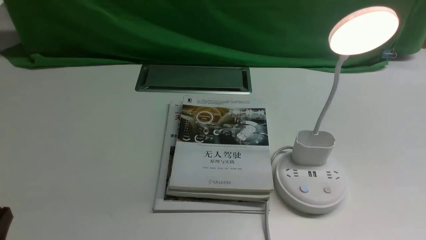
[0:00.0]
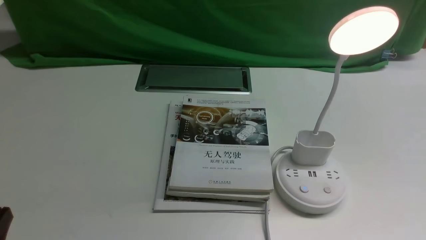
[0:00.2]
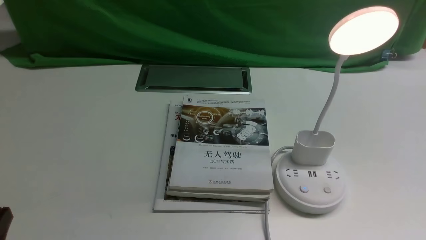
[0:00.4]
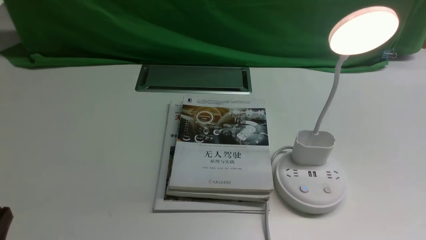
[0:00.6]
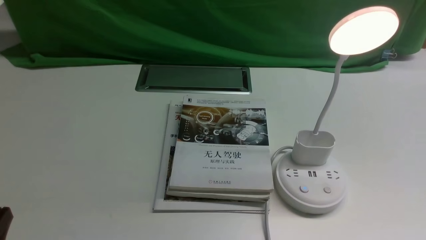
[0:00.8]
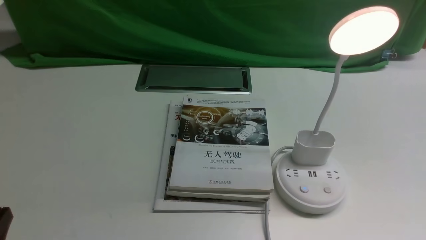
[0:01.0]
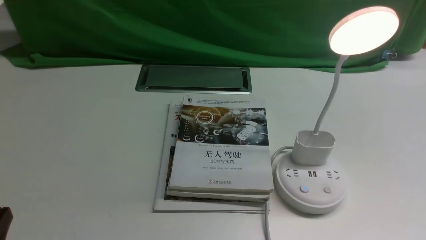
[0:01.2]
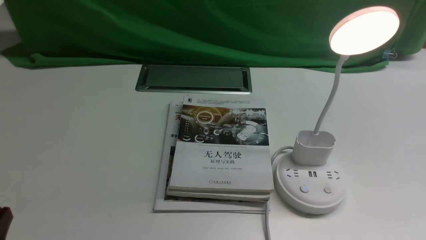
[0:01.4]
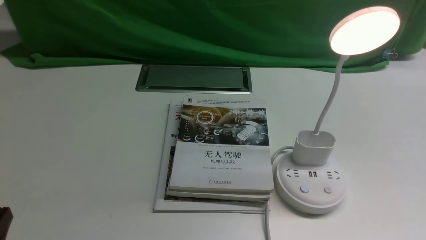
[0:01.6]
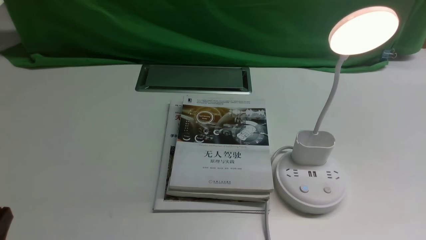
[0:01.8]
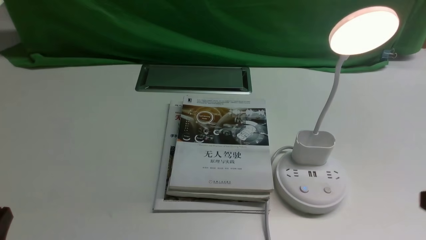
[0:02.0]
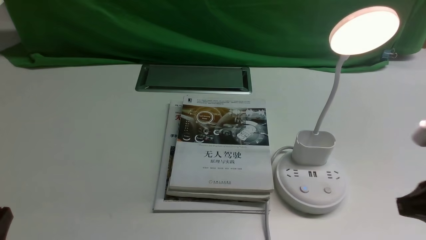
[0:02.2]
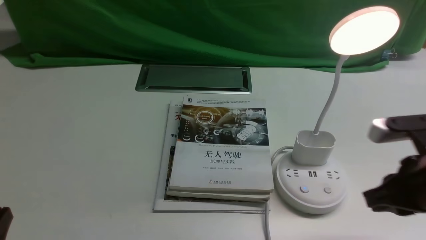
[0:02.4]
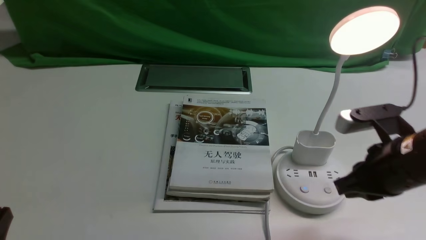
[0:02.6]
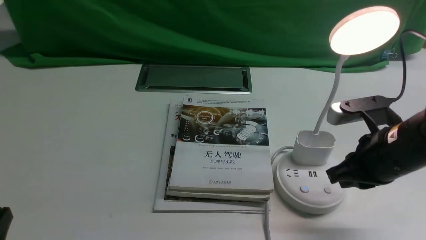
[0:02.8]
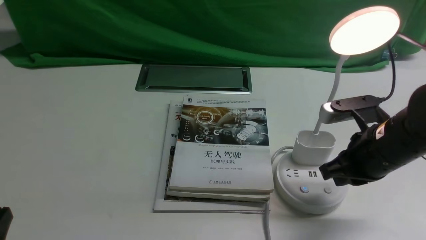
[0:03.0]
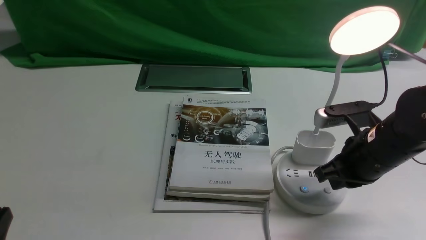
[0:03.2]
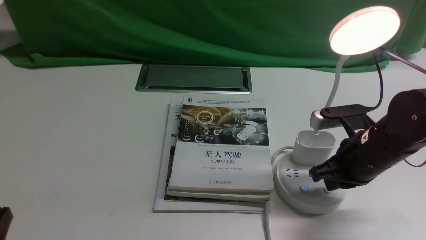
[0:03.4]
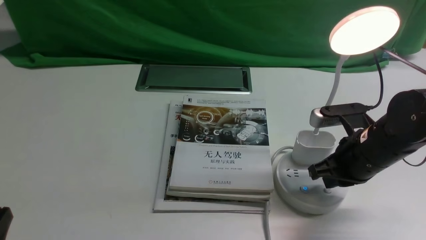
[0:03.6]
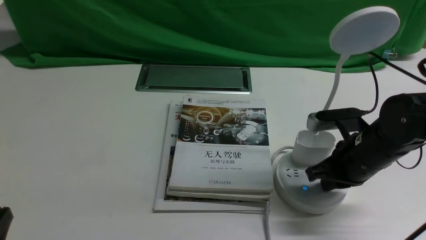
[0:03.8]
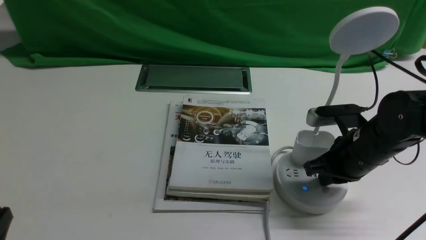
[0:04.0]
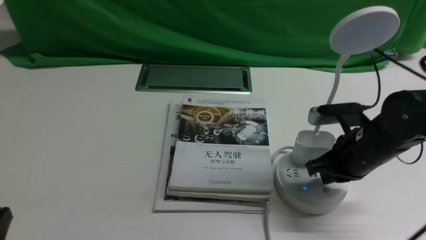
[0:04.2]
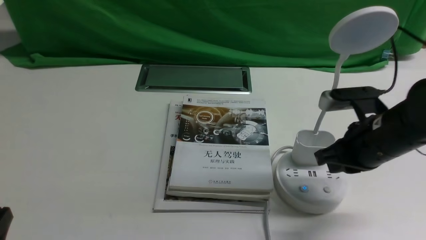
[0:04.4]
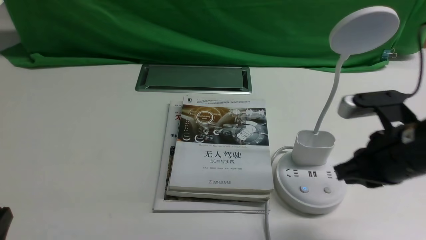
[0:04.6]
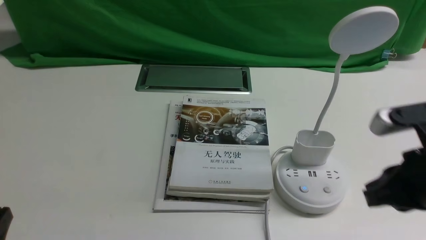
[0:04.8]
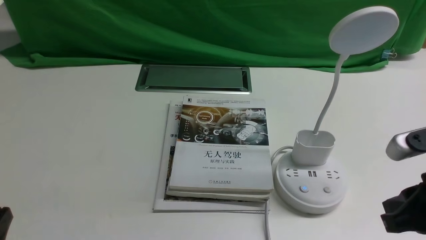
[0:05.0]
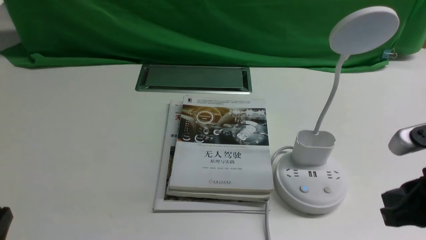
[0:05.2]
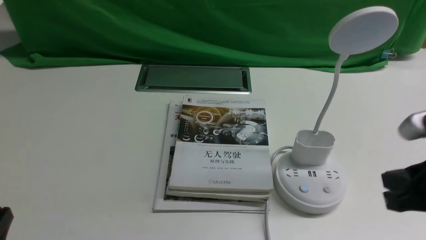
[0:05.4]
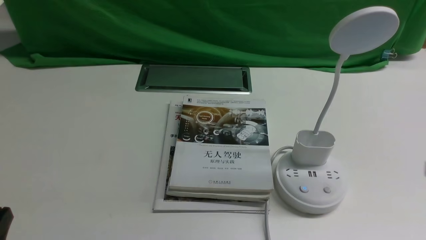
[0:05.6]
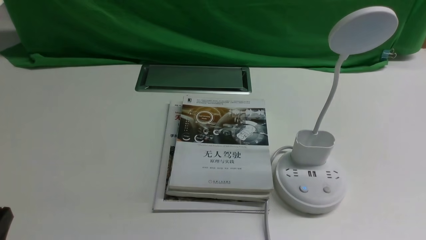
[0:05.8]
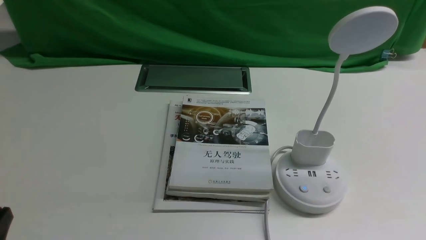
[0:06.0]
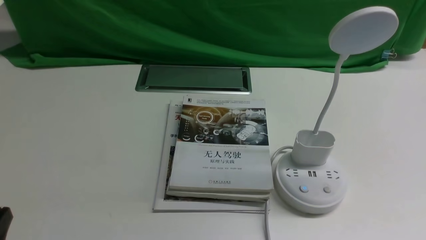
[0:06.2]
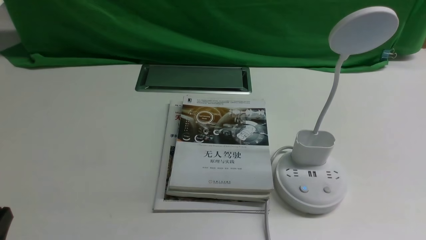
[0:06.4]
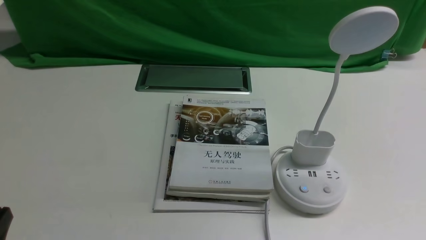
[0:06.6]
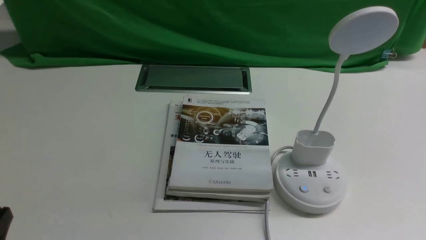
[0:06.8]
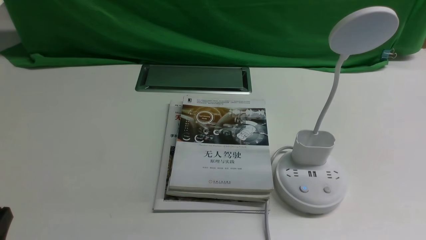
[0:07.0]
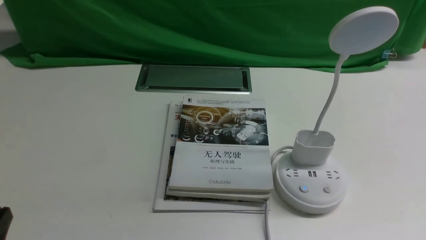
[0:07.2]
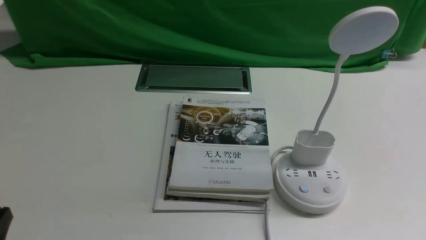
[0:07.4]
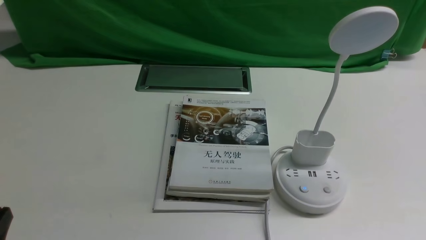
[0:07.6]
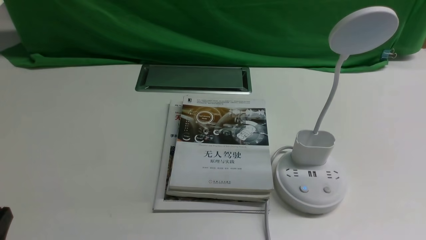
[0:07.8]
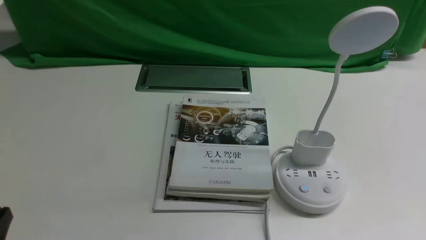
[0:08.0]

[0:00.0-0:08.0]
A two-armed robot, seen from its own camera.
Task of the whole recording: turn off the desk lamp on the white desktop by hand.
Step, 0:00.0 to 0:04.2: use the right arm to press the button switch on the lamp holder.
0:01.6 to 0:03.2: The right gripper heads forward and to the left, covering roughly 25 cm, and closes its fingers.
0:03.2 to 0:04.8: The right gripper heads backward and upward, covering roughly 10 cm.
0:04.8 to 0:06.4: The right gripper is displaced backward, downward and to the right by about 15 cm.
0:06.4 to 0:08.0: Neither gripper changes place.

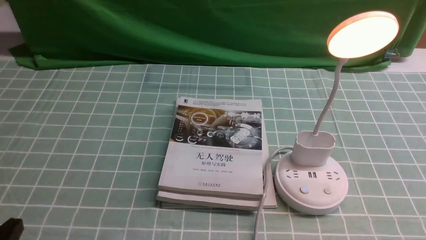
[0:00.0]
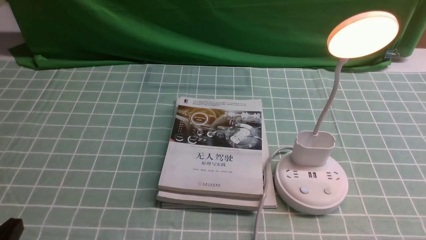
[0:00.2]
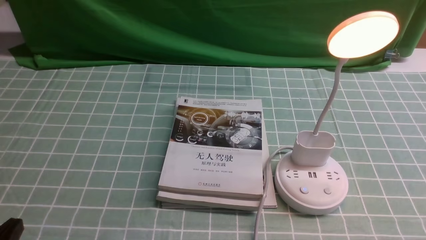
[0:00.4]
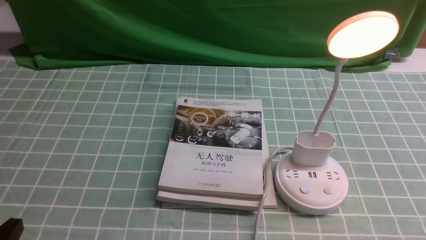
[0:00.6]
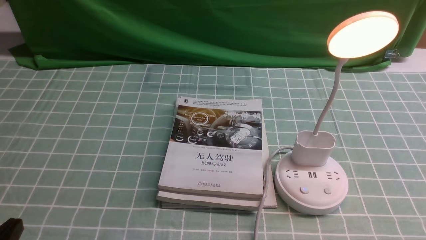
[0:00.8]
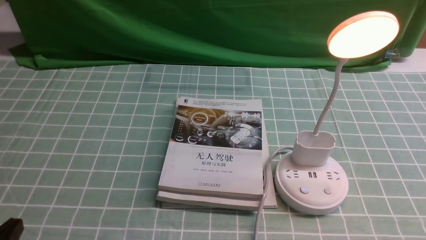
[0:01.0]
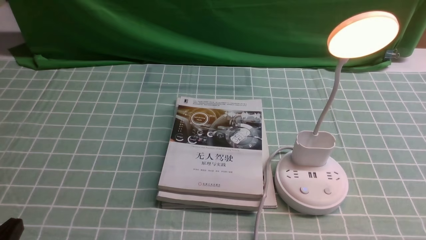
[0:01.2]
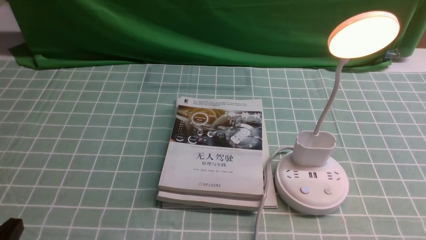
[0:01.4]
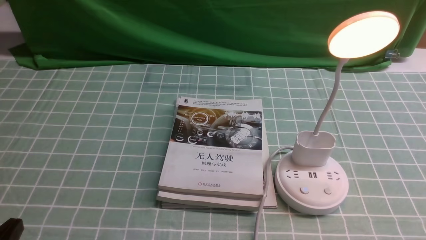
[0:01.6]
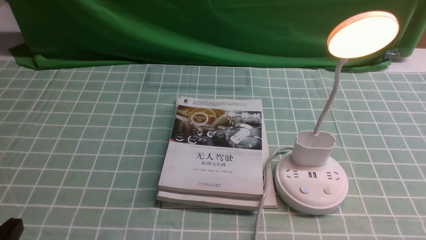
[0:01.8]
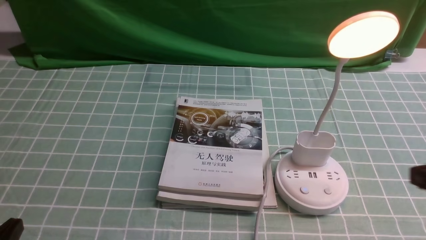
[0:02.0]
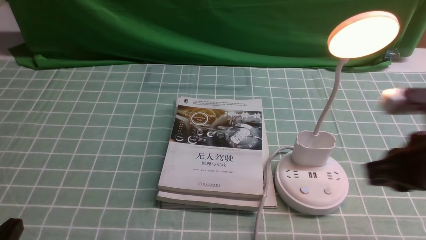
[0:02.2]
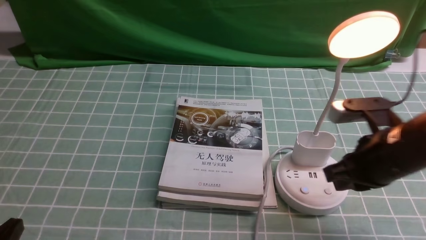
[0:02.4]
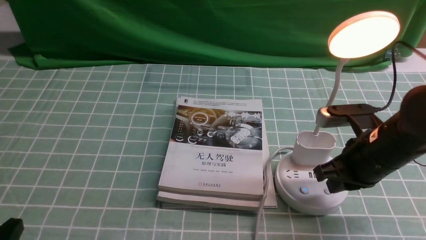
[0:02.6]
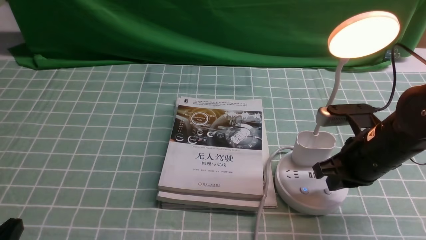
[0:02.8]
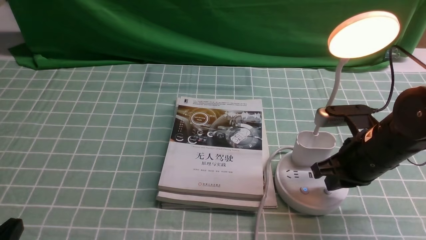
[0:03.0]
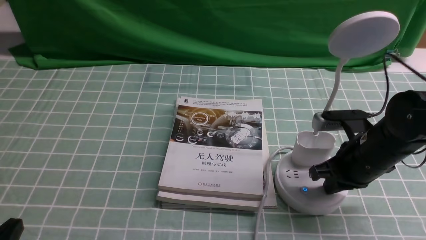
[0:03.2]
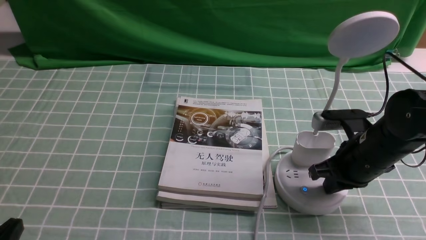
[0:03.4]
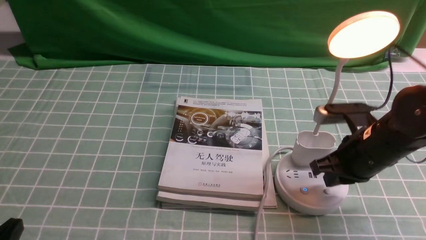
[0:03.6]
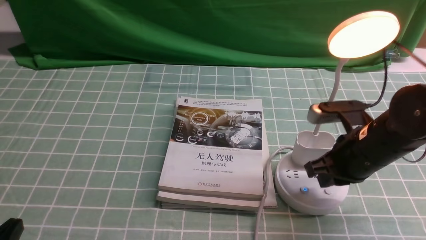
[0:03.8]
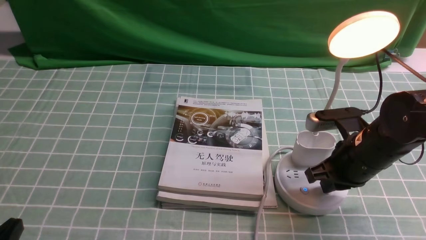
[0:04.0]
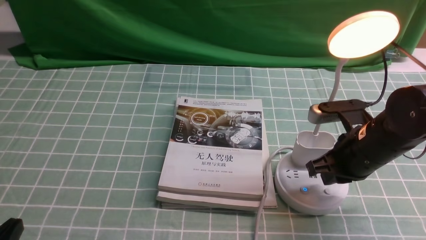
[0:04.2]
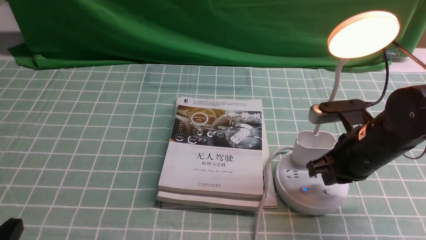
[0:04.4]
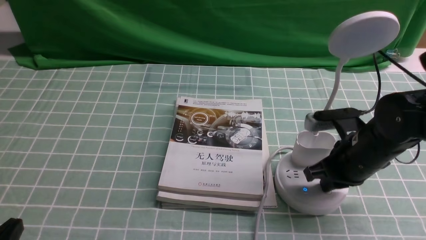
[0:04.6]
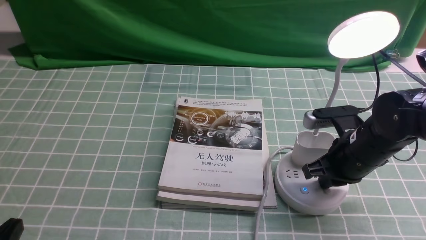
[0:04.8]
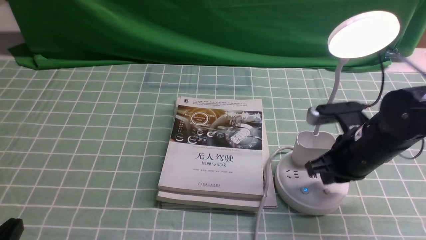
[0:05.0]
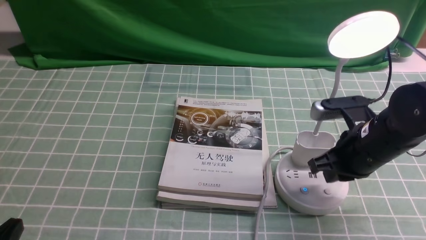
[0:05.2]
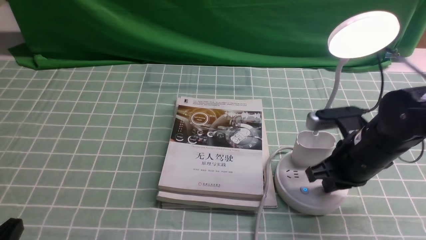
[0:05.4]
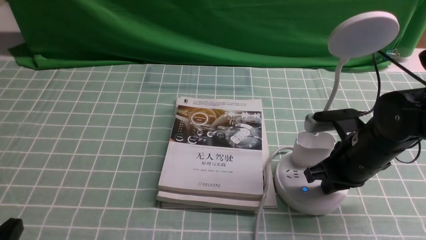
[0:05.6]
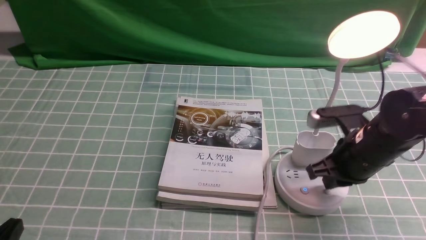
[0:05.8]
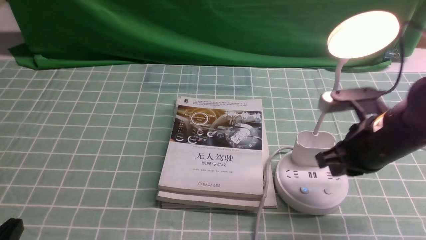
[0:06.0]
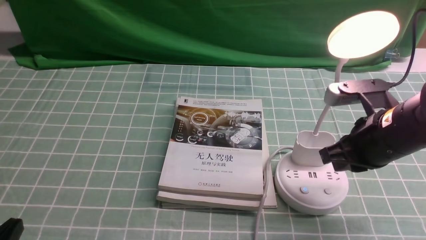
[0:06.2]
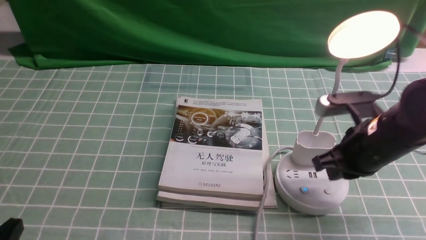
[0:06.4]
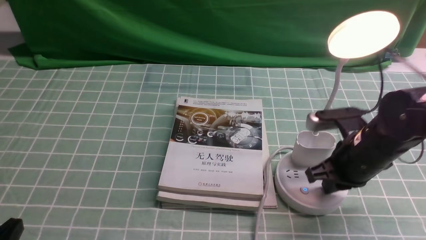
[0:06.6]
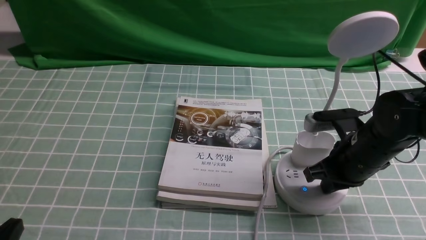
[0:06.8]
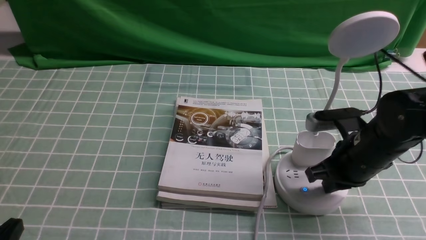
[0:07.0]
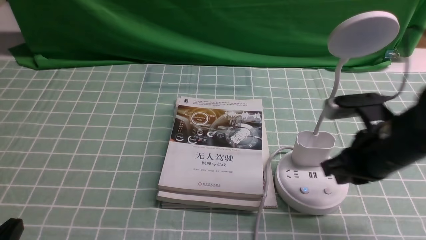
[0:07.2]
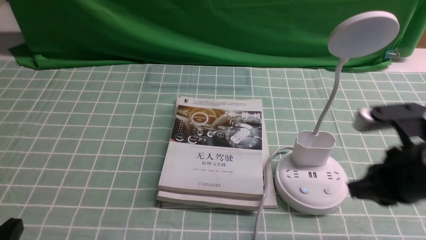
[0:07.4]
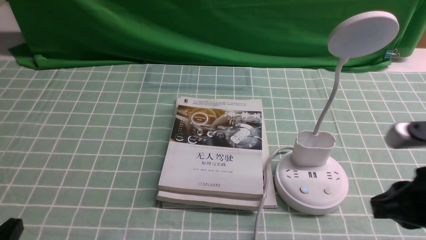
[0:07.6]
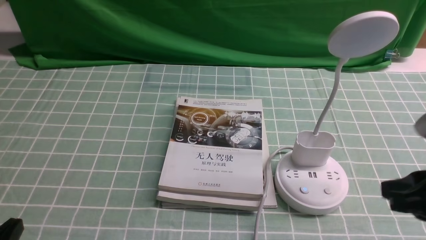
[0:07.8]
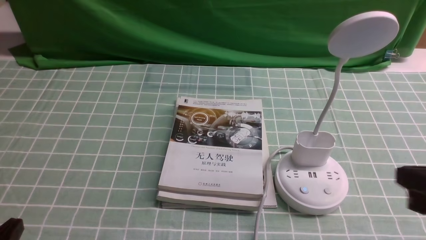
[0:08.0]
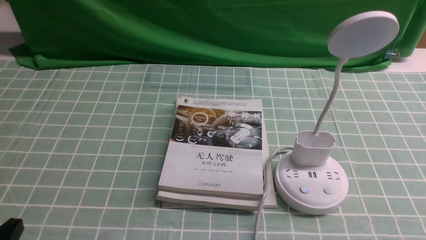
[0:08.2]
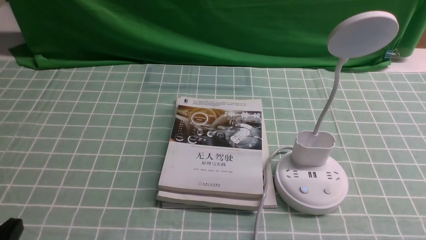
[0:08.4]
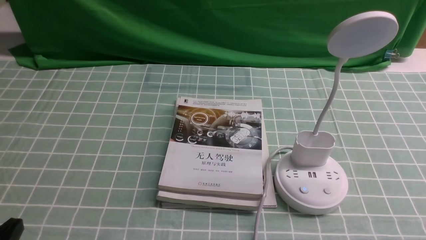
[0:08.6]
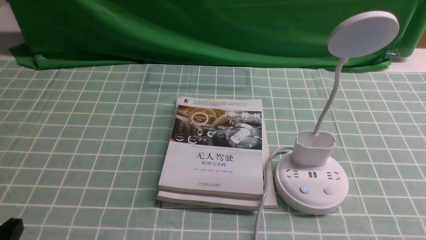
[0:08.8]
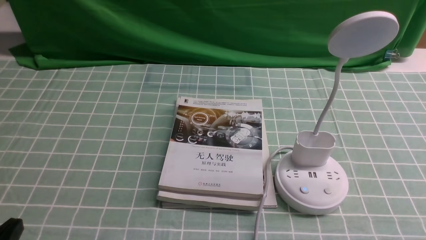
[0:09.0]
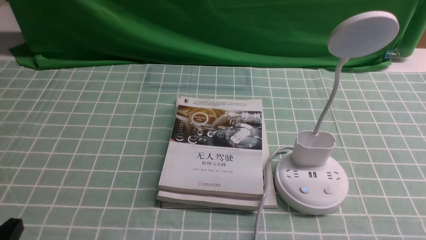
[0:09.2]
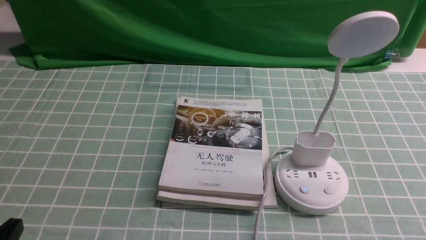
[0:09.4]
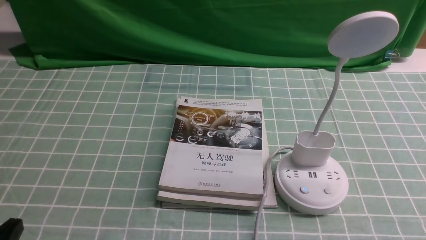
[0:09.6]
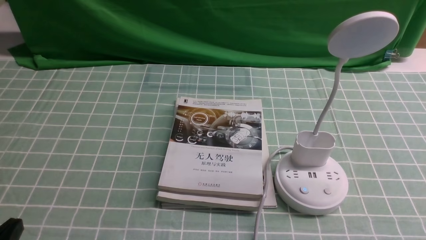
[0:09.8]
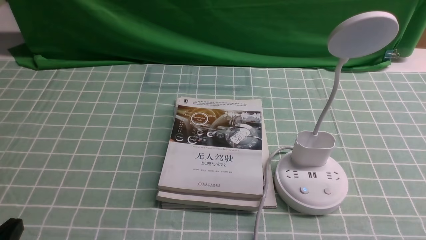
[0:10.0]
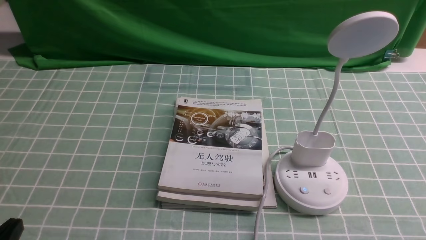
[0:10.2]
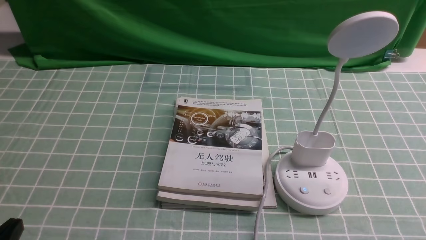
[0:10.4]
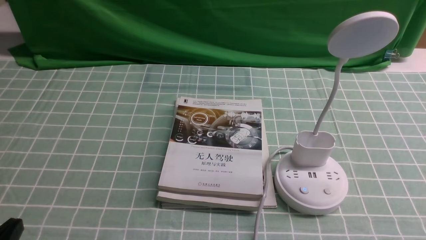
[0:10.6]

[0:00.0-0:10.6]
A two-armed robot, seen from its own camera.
Task of the whole recording: turn off the desk lamp on the blue coffee tablecloth by hand.
Step, 0:00.0 to 0:07.0: use the right arm to press the button switch on the lamp holder.
0:01.6 to 0:03.0: The right gripper goes some 20 cm forward.
0:03.0 to 0:04.6: Both grippers stay about where they are.
0:04.6 to 0:06.0: The grippers stay close to where they were, moving slightly.
0:06.0 to 0:07.6: The right gripper shifts roughly 10 cm backward.
0:07.6 to 0:09.0: The right gripper is displaced backward, downward and to the right by roughly 15 cm.
